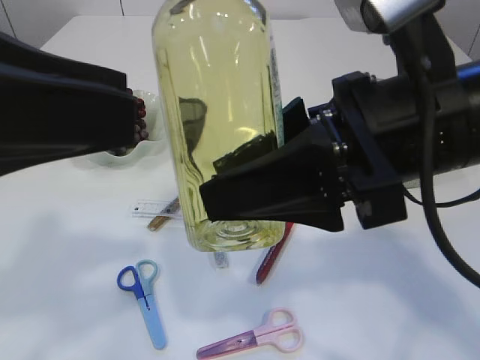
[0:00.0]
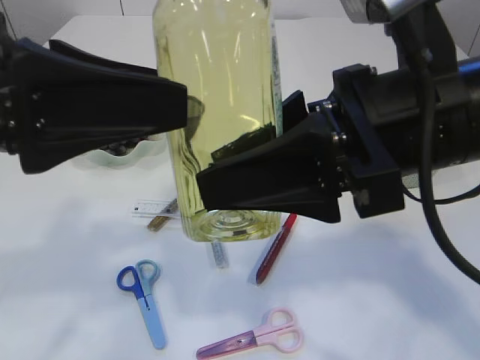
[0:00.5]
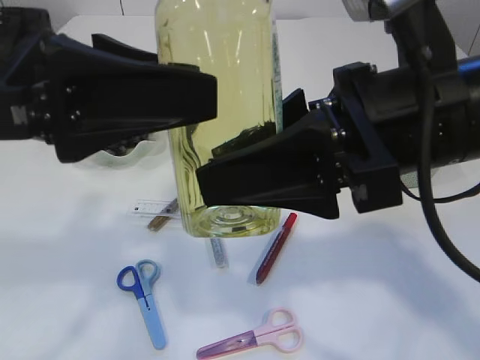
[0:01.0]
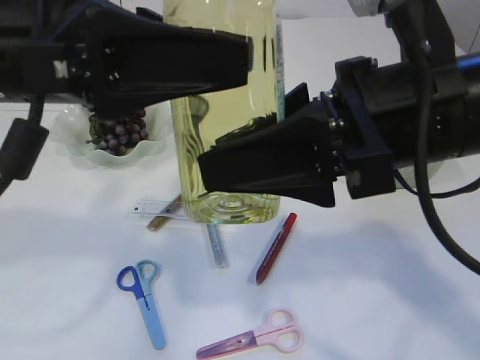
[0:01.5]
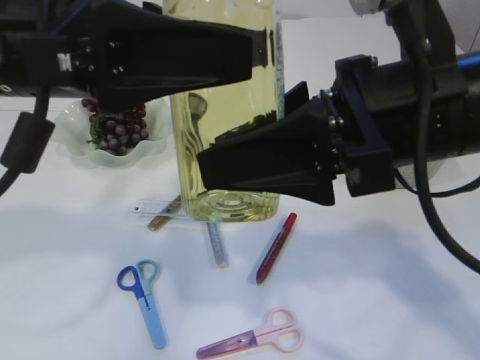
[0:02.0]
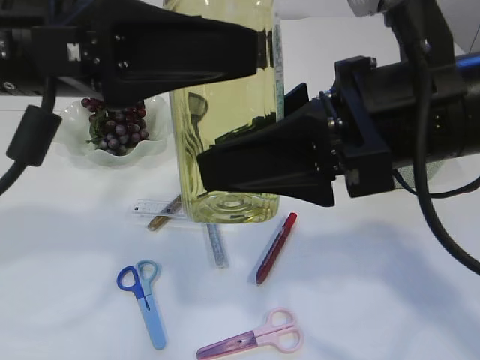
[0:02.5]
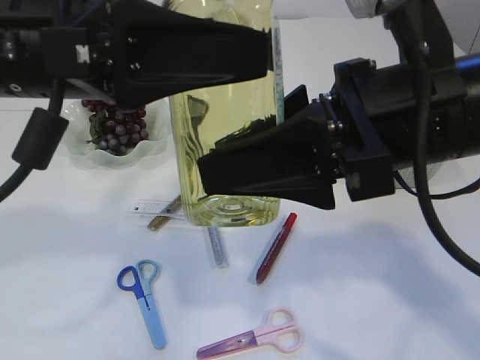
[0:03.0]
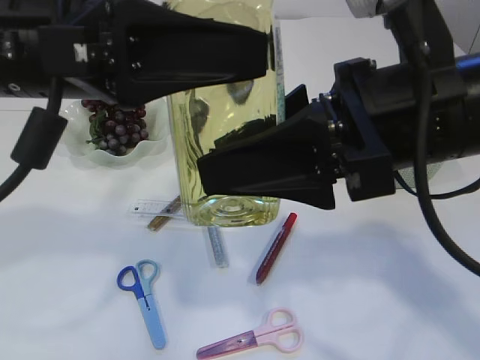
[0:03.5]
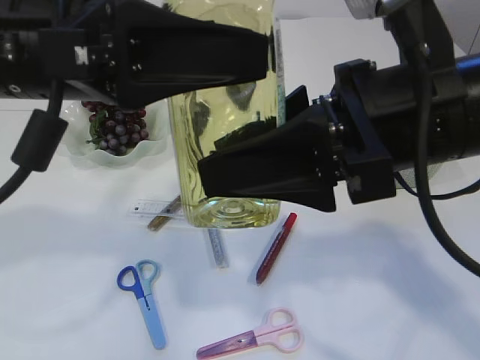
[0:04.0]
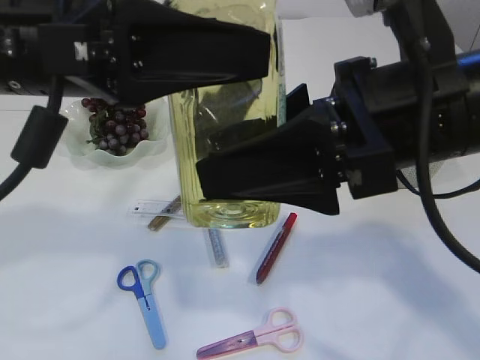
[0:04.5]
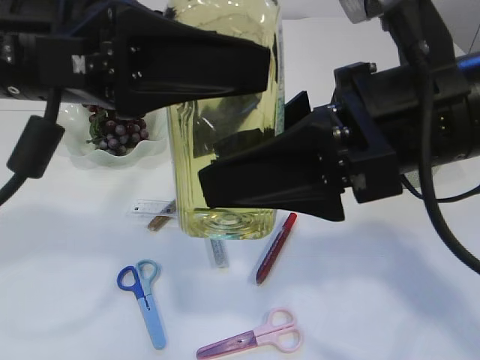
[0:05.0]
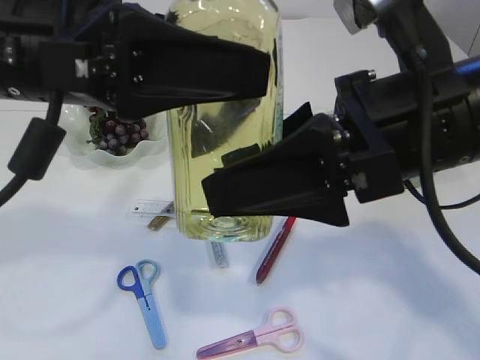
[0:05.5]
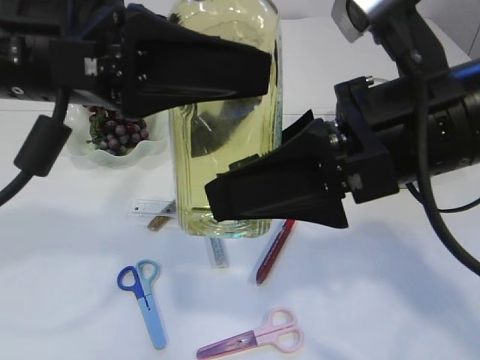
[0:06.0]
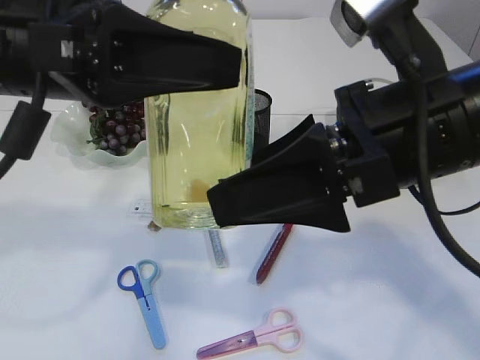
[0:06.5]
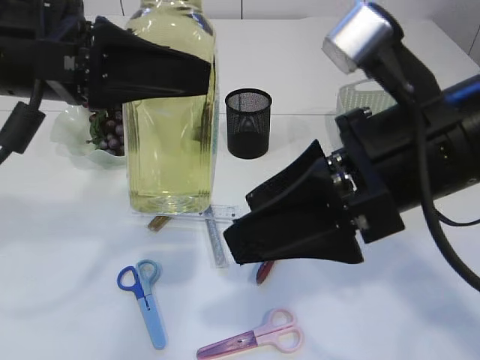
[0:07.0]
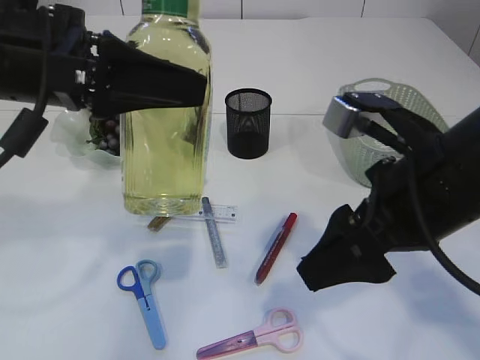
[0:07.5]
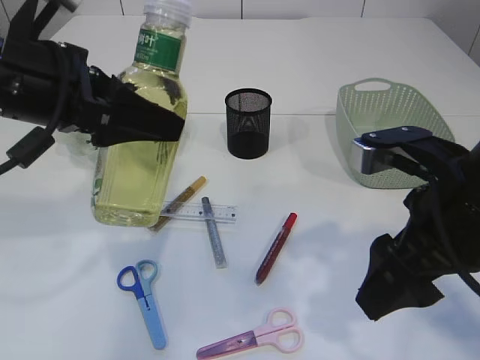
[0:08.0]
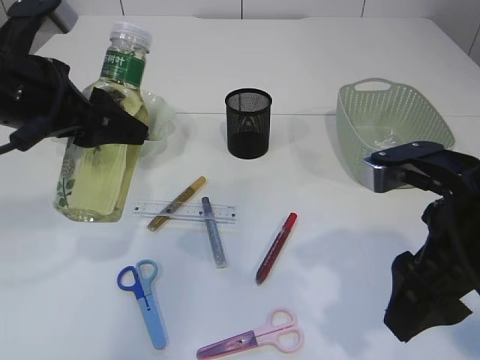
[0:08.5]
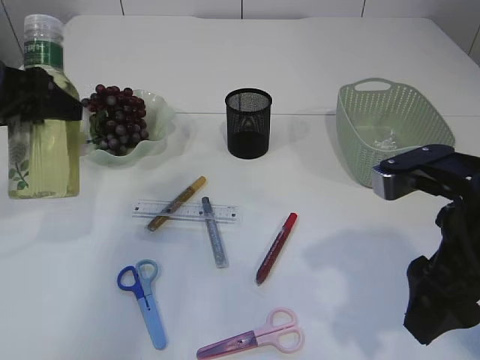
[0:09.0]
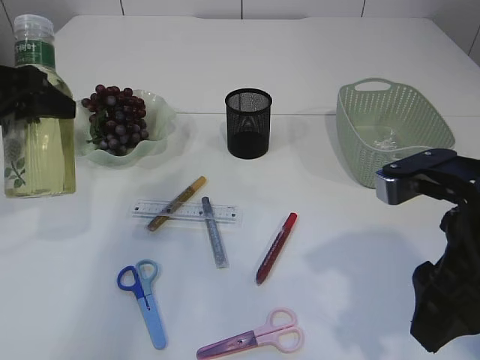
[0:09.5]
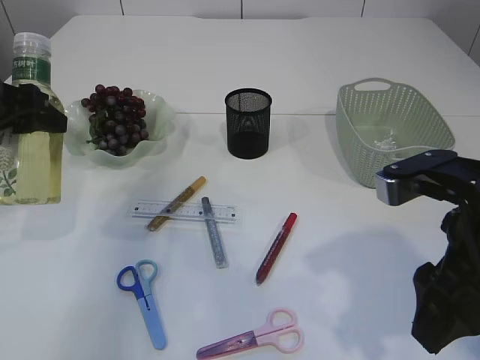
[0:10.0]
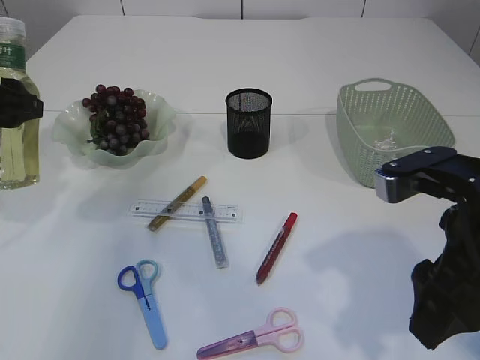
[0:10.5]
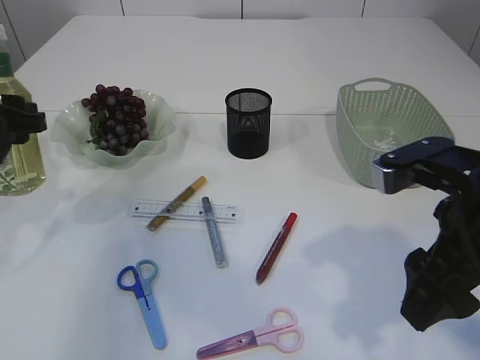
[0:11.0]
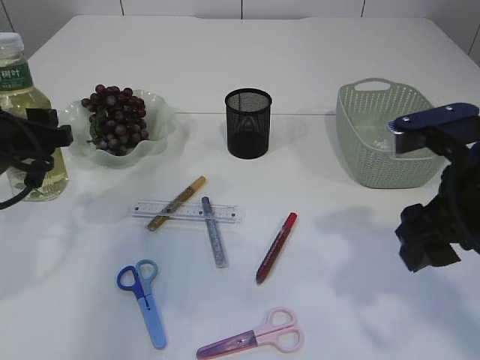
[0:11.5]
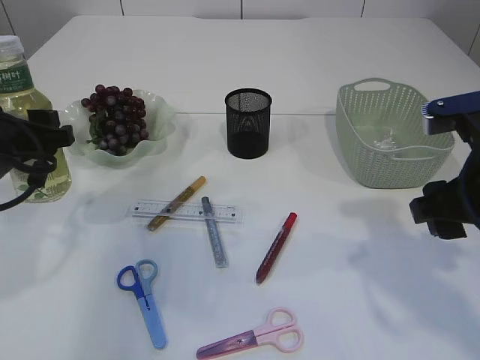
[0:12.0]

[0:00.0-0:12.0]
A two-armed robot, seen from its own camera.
Step, 0.0 to 6.5 s: transfer the bottle to the left arm.
0.0 to 2.0 s: The left gripper heads forward and to the right, covering some 10 cm.
2.0 to 4.0 s: Neither gripper changes place.
4.0 to 6.0 s: The grippers stay close to where they were, moving slightly.
6.0 to 8.0 s: The right gripper travels downward and to the right by about 10 cm; the left gripper shifts approximately 5 cm to the left.
8.0 to 10.0 s: The left gripper is displaced to the left and forward by roughly 10 cm.
10.0 to 12.0 s: The right gripper changes place by about 5 cm; the left gripper goes about 5 cm downward.

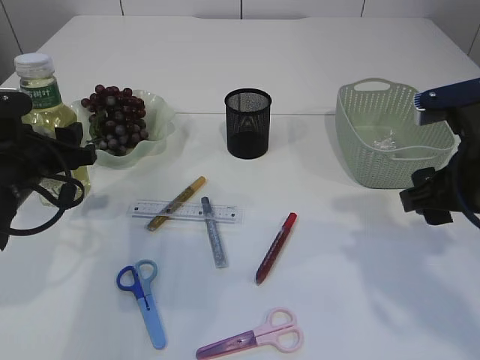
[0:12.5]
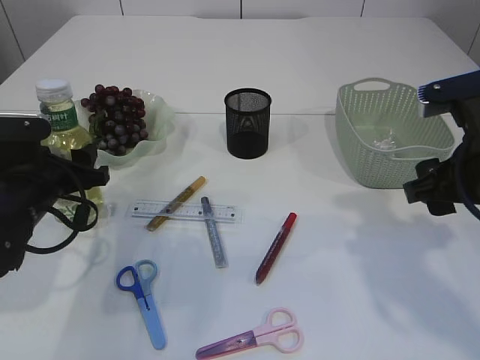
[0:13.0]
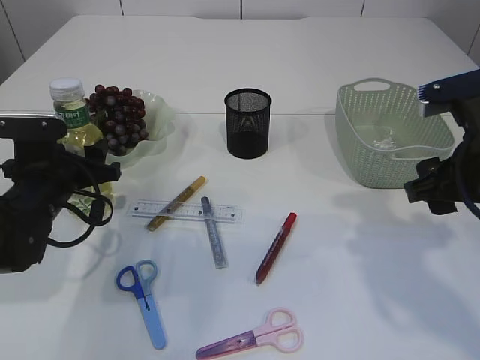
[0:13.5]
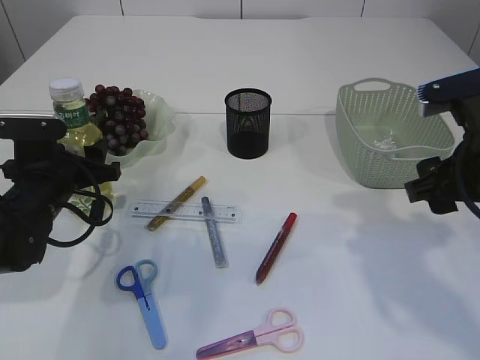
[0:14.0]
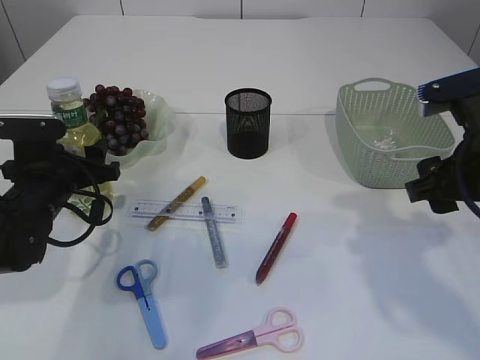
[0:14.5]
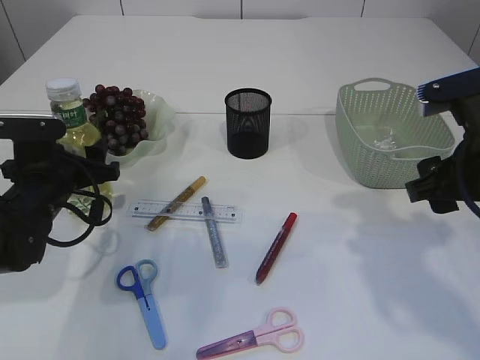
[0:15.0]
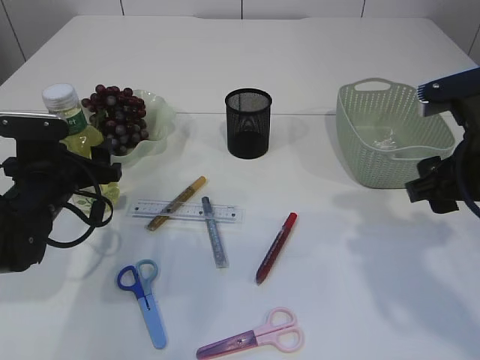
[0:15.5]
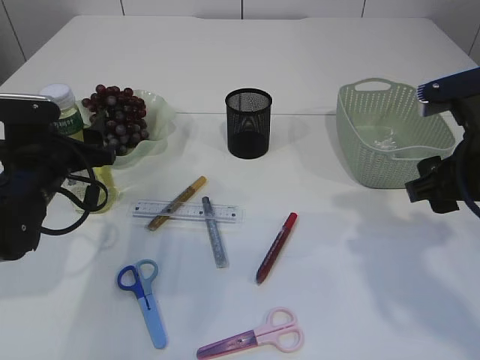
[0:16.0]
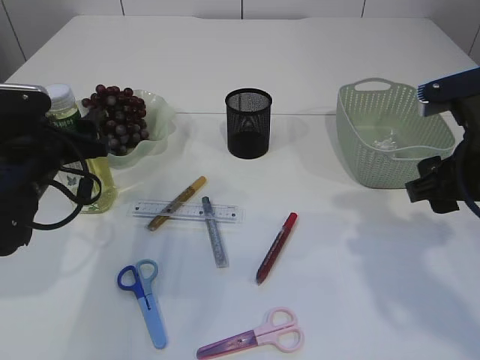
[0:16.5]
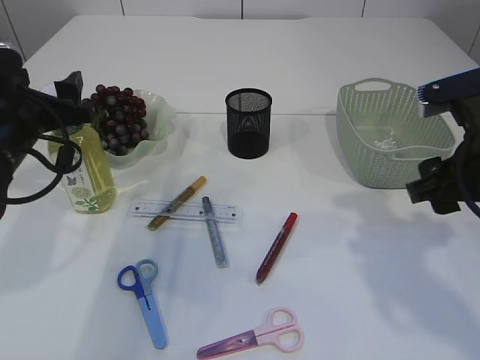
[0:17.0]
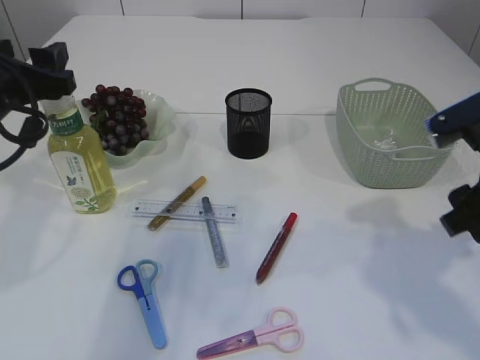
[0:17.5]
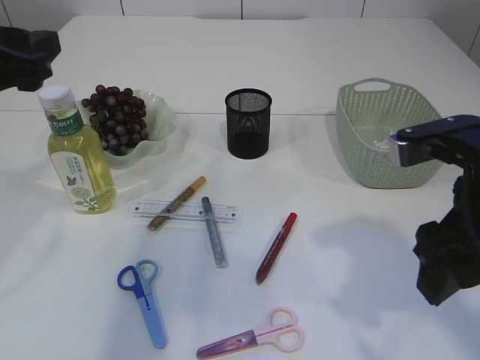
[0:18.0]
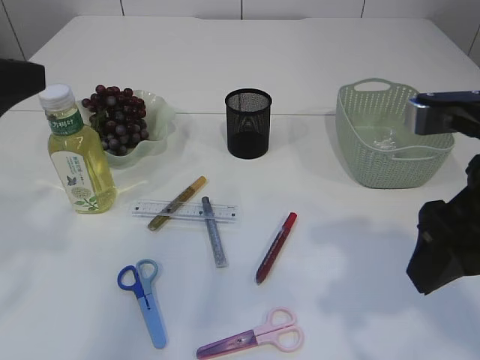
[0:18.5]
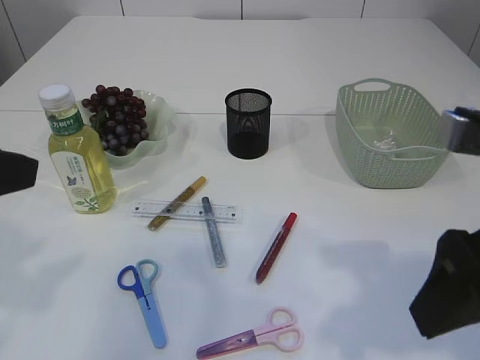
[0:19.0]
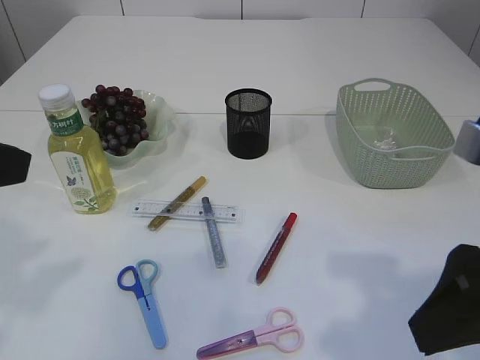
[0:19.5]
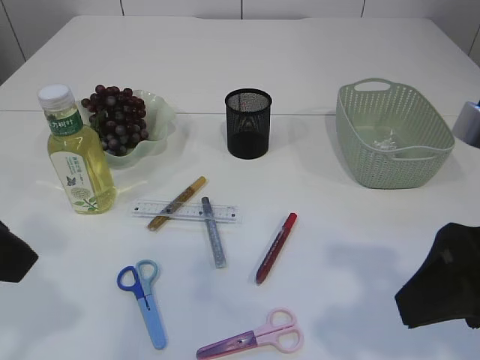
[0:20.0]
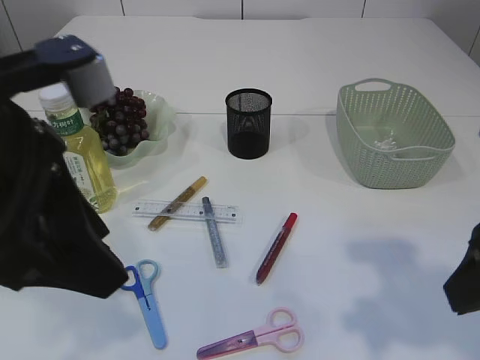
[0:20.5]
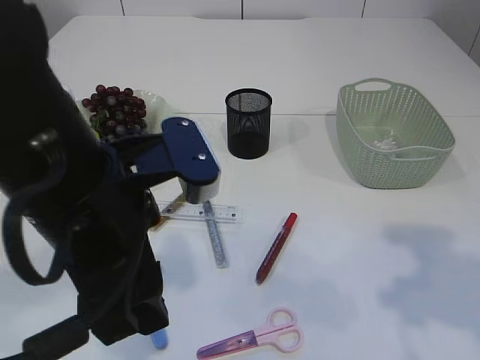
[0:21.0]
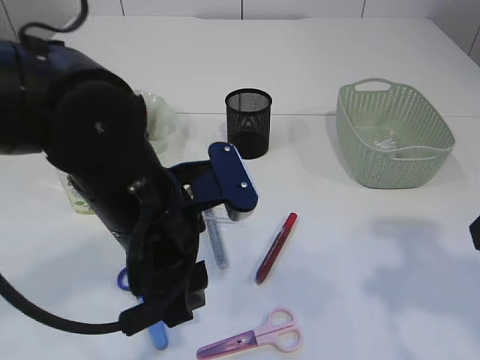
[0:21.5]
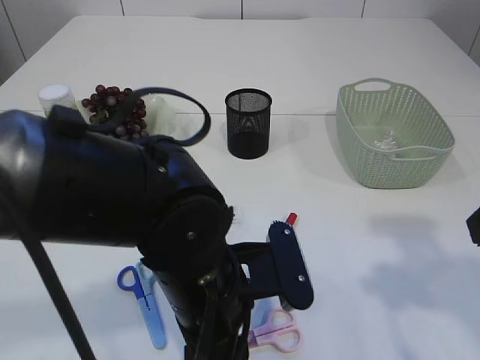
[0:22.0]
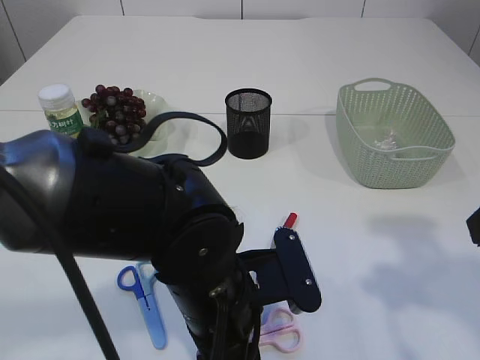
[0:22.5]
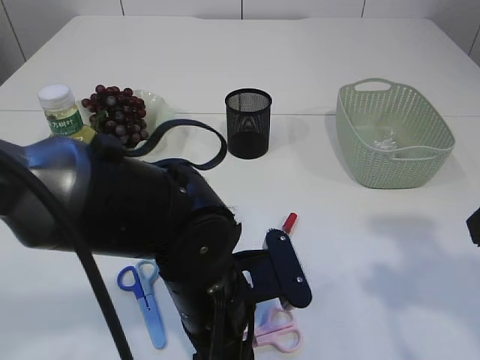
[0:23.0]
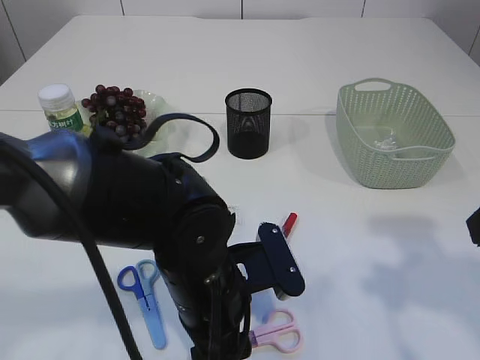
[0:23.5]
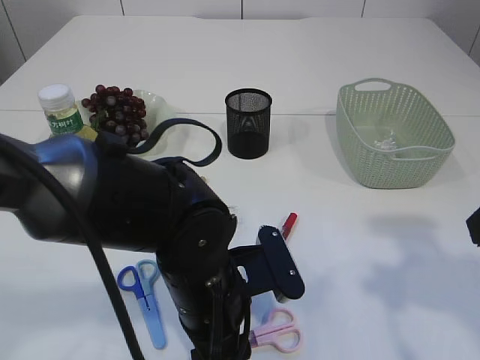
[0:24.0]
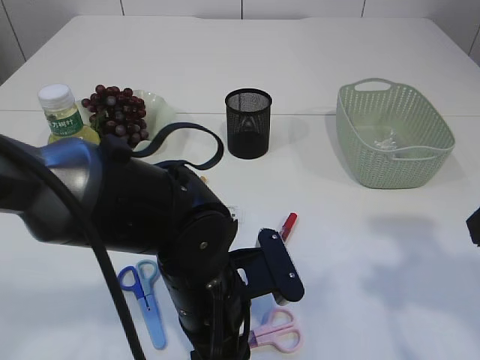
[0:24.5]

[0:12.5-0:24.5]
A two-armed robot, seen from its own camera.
Step, 12.5 to 17.5 s: Place the bottle.
12.5 to 14.5 s: The left gripper is displaced downward by approximately 5 cm.
14.5 to 16.5 s: The grippers make only small movements.
16.5 to 18.5 s: The left gripper shifts some 20 cm upward and backward. Meanwhile the right gripper travels backward and upward by roughly 10 cm.
18.5 to 20.5 s: The left gripper is displaced to the right by approximately 10 cm.
20.5 to 22.5 s: The left gripper heads downward and to the right, covering approximately 20 cm.
22.5 to 24.5 s: There are only small adjustments of the grippers.

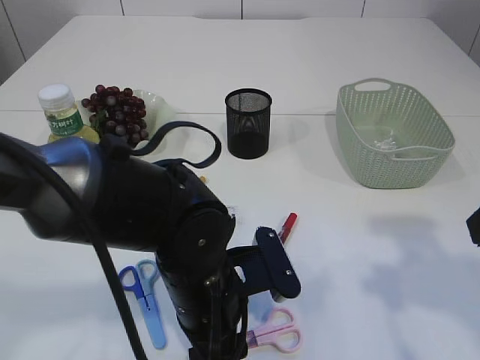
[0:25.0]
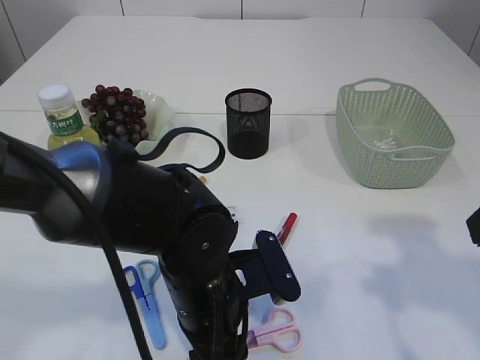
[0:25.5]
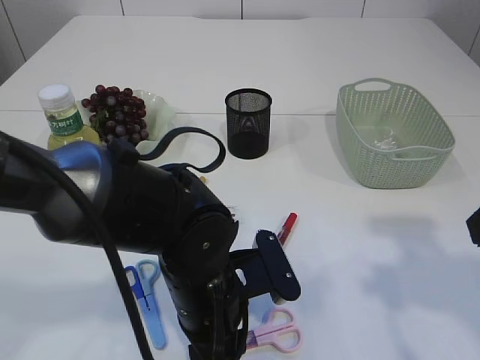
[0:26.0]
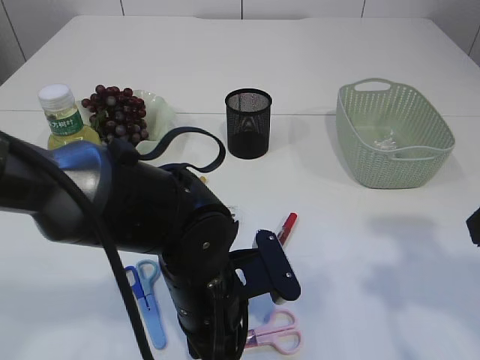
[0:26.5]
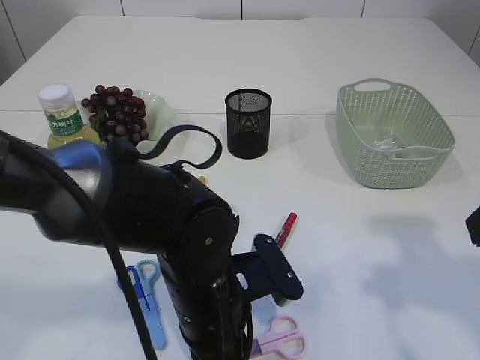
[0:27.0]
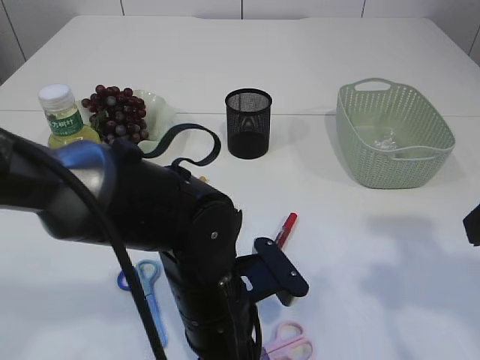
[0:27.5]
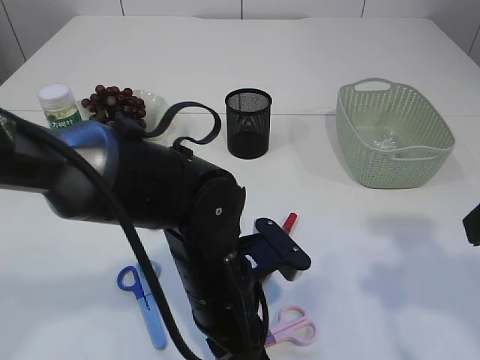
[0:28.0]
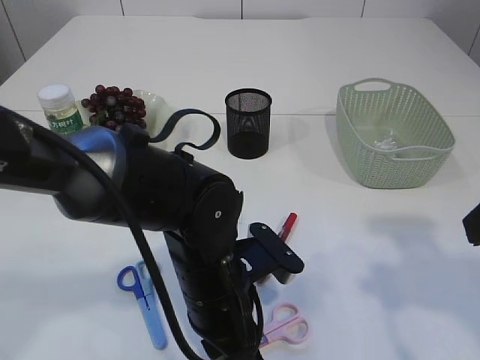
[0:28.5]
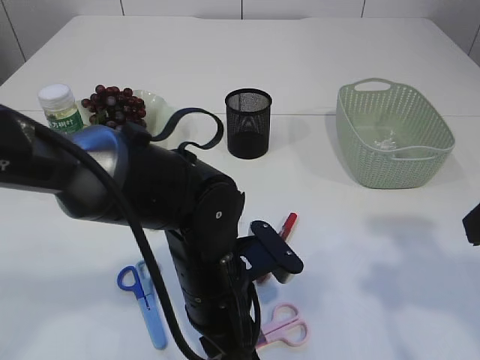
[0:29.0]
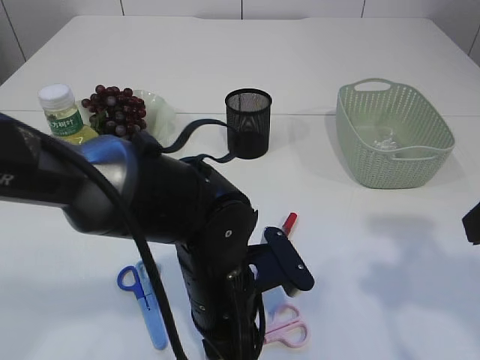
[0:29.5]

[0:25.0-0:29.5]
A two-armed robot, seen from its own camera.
25.0 to 27.0 s: The left gripper closes its fingers.
27.0 to 29.5 s: There are only small adjustments of the grippers.
